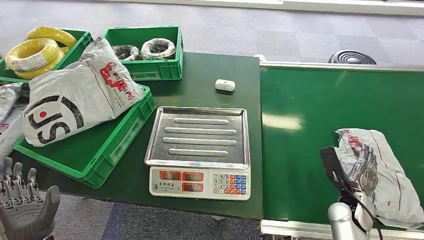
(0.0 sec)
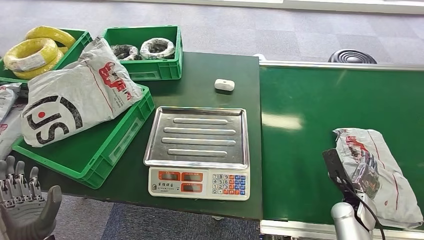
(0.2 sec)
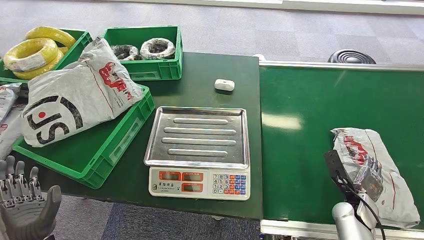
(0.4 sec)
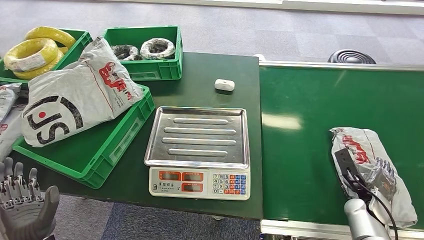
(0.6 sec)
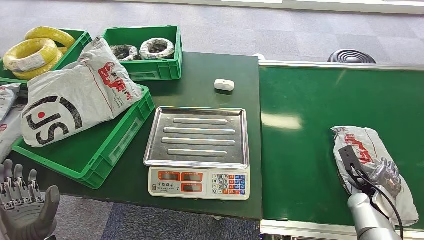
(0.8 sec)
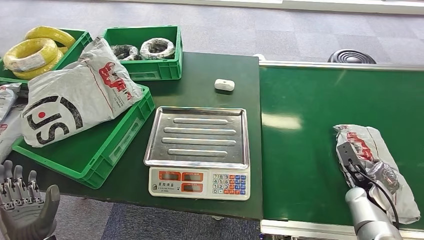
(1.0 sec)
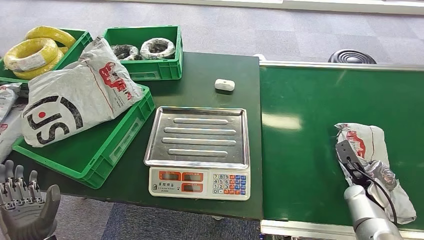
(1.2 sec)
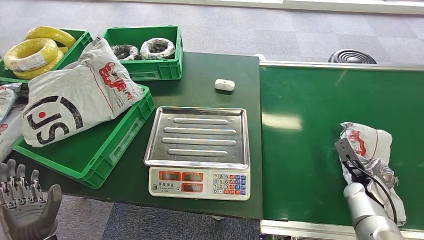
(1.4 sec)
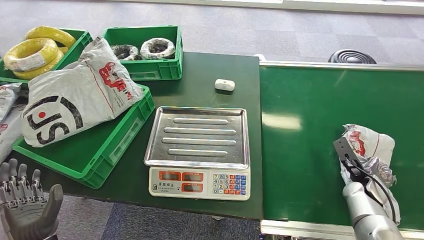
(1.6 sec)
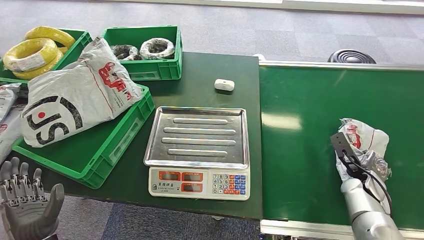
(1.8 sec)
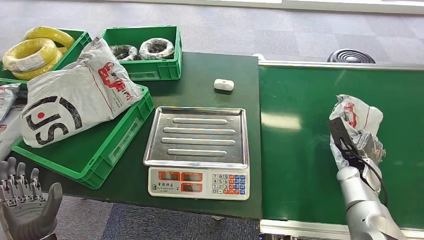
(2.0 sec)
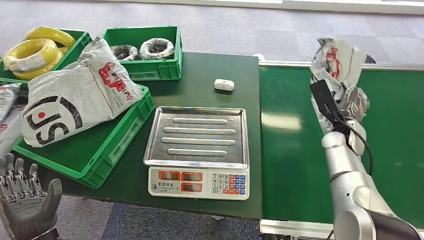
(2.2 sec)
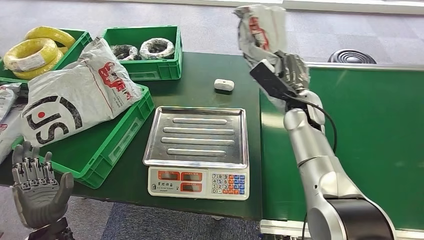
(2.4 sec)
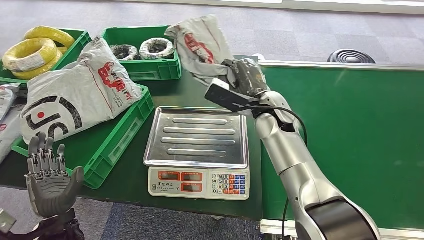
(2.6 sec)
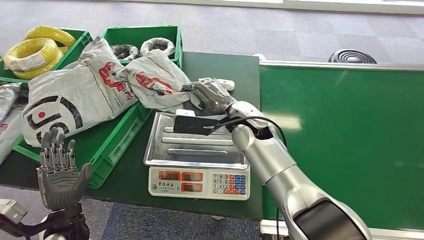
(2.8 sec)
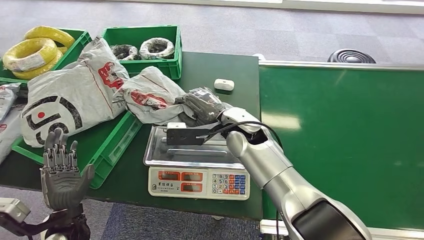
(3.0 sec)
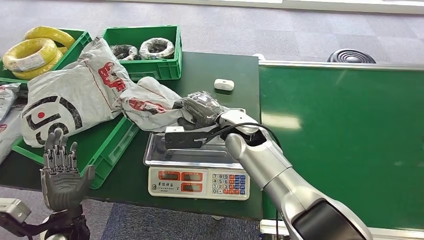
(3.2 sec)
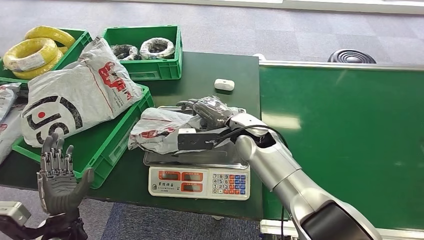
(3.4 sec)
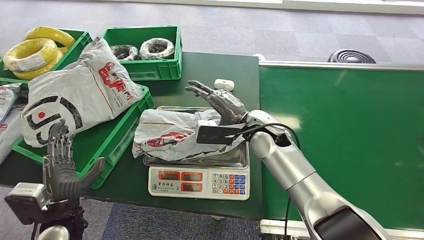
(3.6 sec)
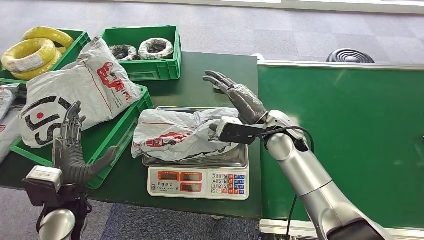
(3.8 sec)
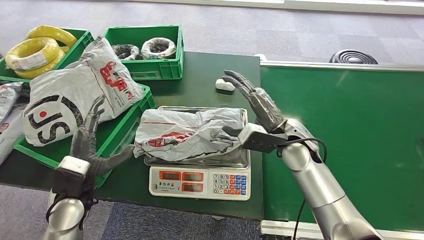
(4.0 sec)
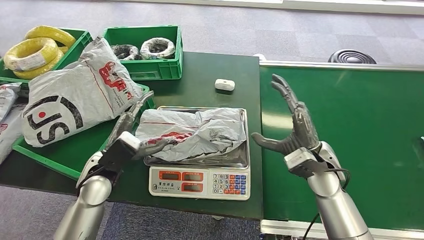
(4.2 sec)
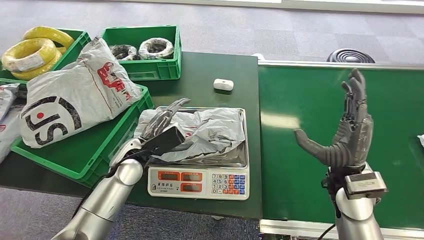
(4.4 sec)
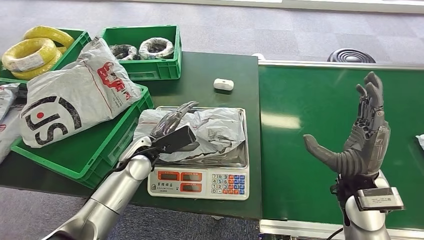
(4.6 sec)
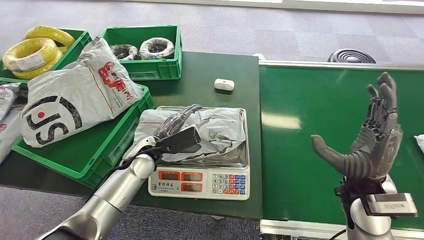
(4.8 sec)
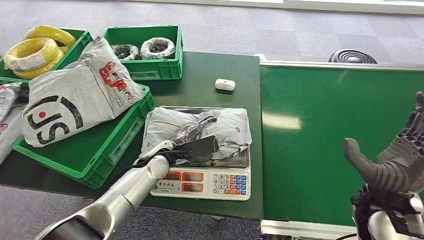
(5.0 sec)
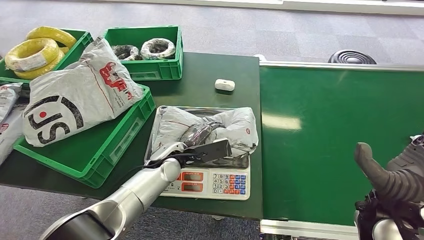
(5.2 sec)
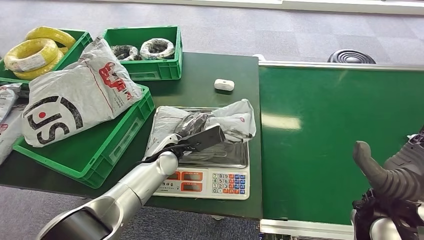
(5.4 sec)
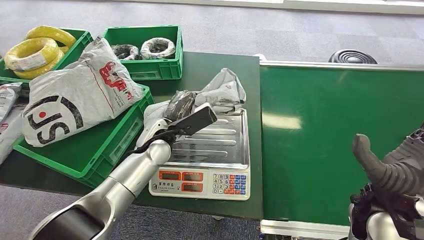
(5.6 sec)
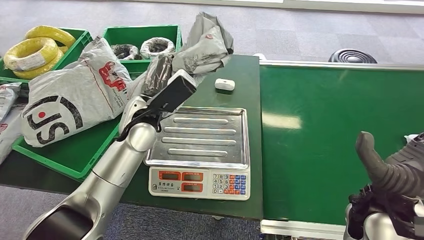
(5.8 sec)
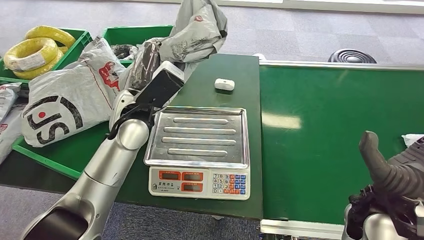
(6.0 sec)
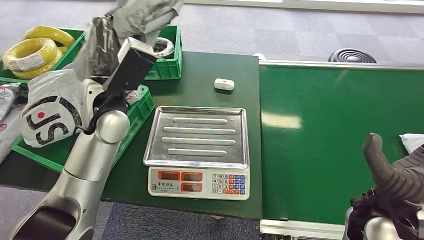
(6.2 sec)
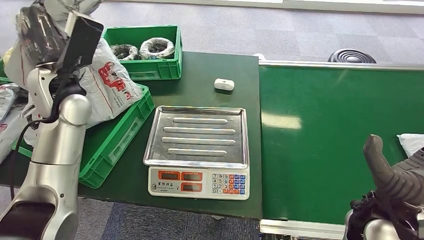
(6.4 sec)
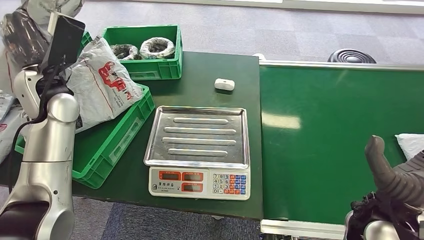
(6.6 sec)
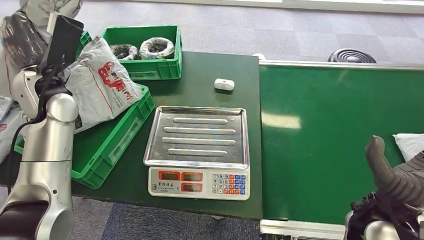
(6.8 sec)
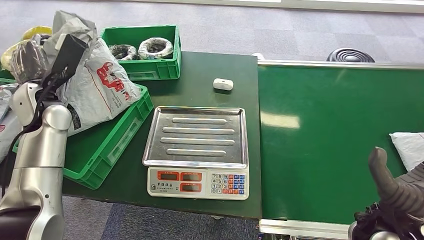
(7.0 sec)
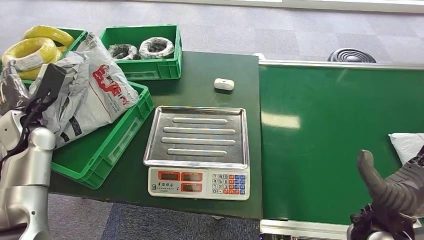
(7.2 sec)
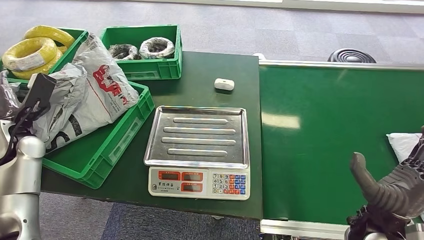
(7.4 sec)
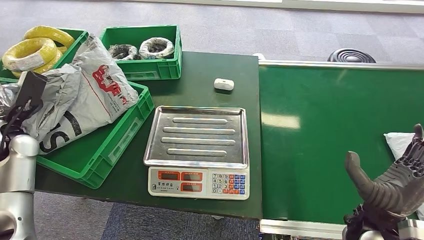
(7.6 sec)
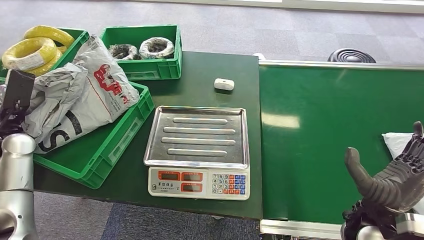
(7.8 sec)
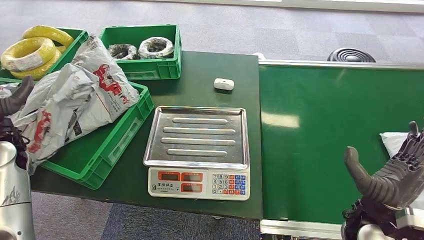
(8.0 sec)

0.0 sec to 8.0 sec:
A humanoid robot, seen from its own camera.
Task of the whole recording: Weigh the package on the weighing device and place it in the left basket.
Step, 0.0 sec to 2.4 sec: Pick up the package from the conveyor belt.
Step, 2.8 sec to 4.2 sec: Place the package onto the inbound machine.
Step, 4.4 sec to 6.2 sec: Pick up the package from the inbound machine.
Step, 6.6 sec to 8.0 sec: Place the package into the parcel locker.
